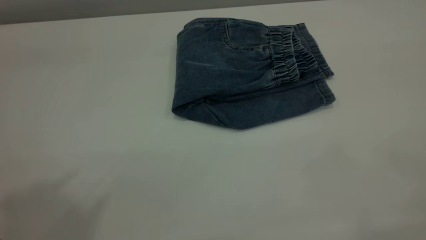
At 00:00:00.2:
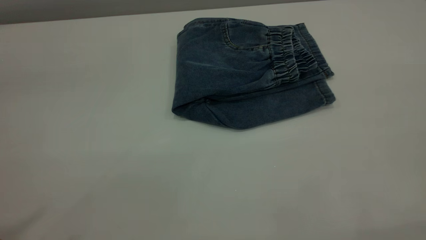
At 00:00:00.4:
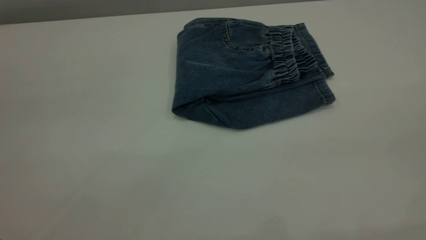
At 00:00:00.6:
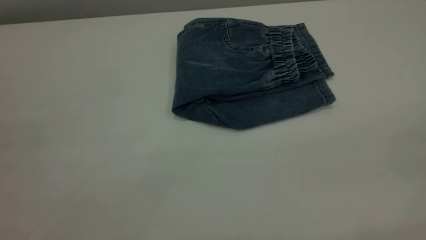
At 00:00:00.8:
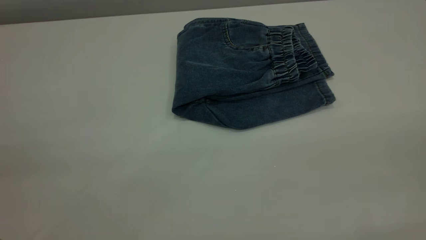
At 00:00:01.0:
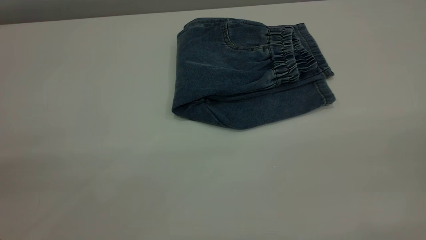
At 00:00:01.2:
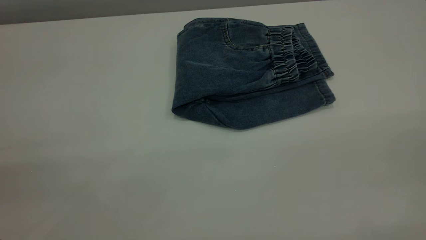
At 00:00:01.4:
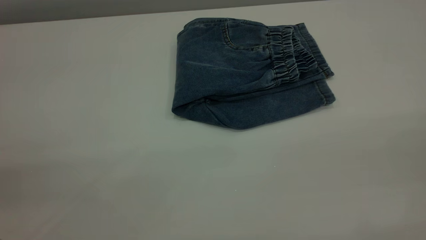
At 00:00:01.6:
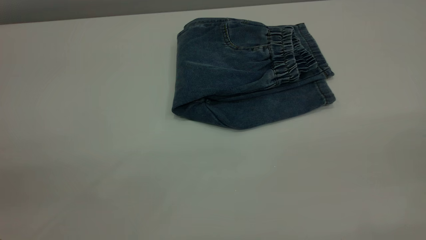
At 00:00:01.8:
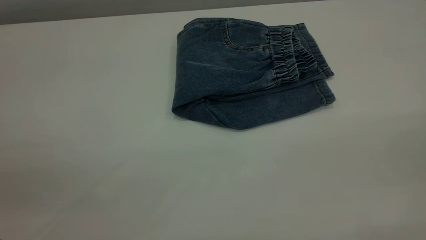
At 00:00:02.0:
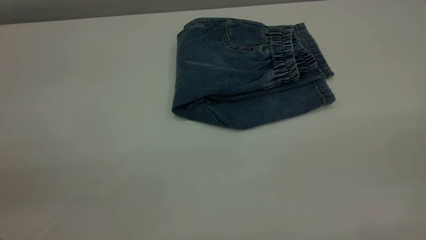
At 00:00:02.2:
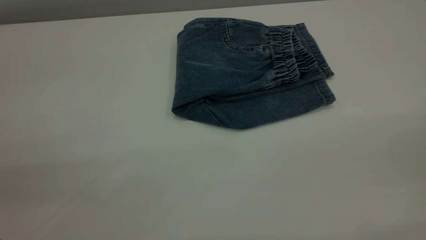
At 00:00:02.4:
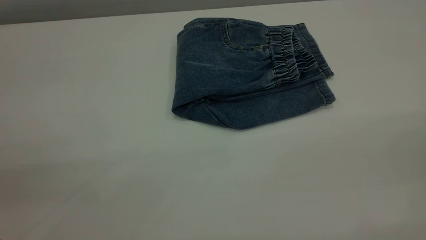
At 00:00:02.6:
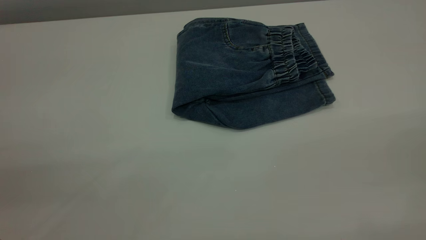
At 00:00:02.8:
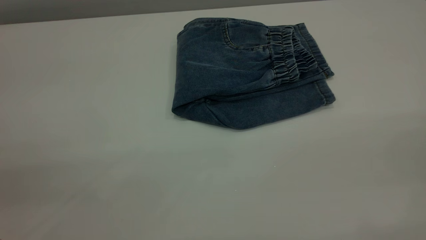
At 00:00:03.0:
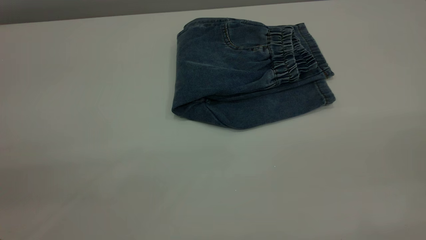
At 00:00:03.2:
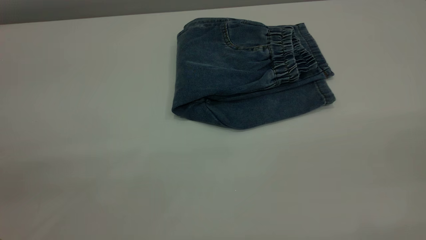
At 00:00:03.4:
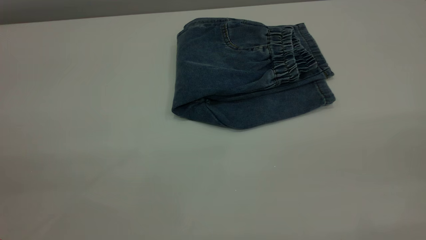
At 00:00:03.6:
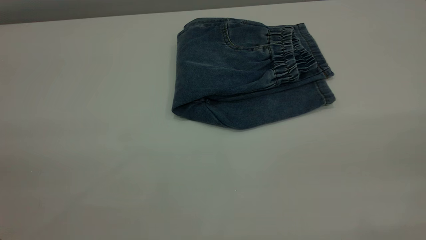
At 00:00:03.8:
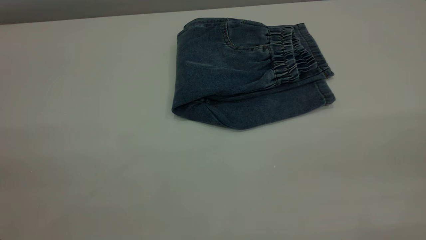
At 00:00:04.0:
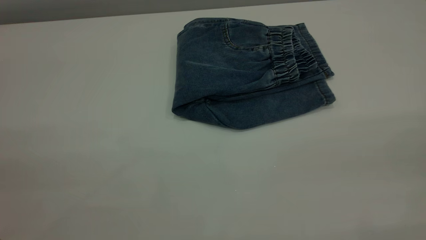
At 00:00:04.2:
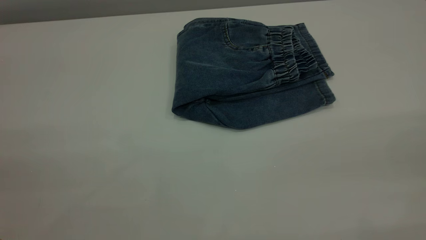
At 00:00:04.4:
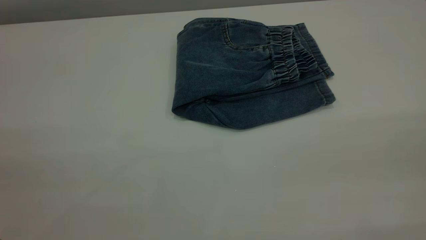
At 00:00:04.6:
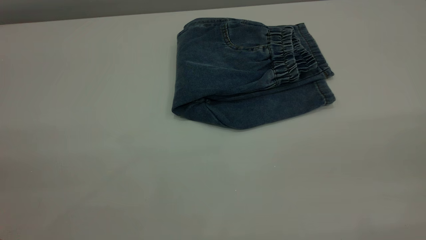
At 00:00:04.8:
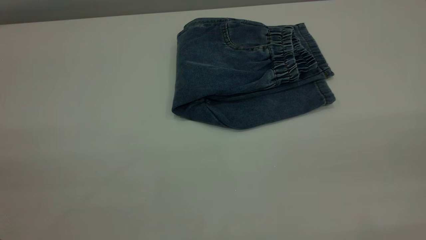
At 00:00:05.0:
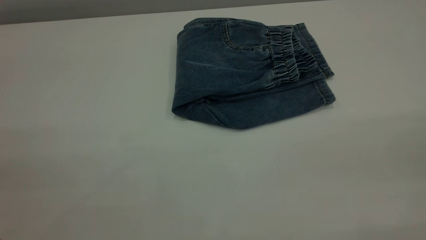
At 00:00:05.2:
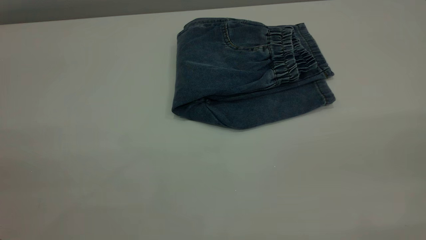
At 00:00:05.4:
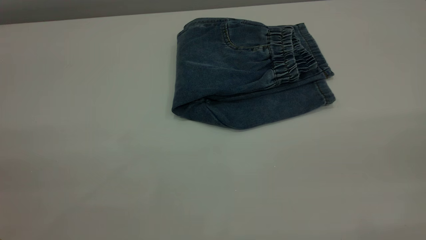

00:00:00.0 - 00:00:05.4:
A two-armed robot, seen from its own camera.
00:00:04.0 - 00:00:05.4: Both grippers stay put.
